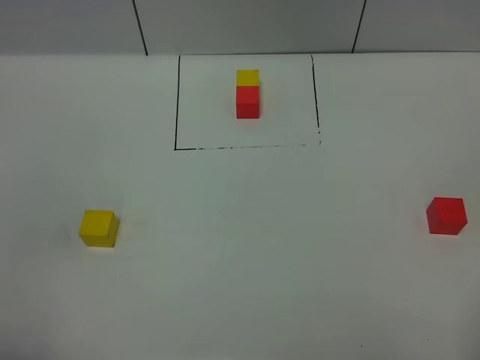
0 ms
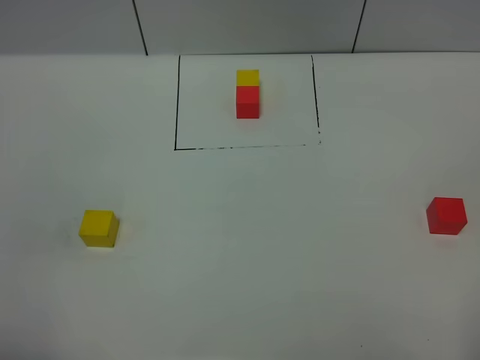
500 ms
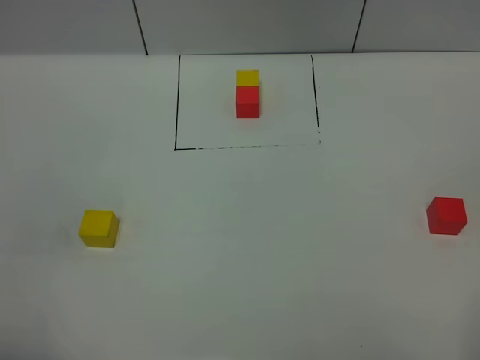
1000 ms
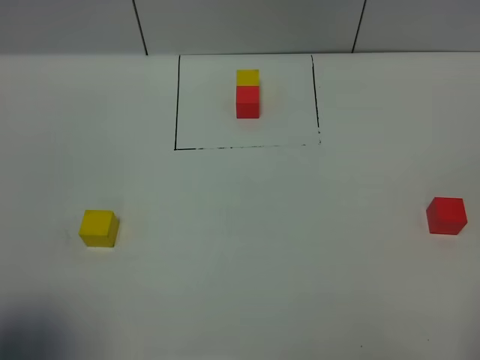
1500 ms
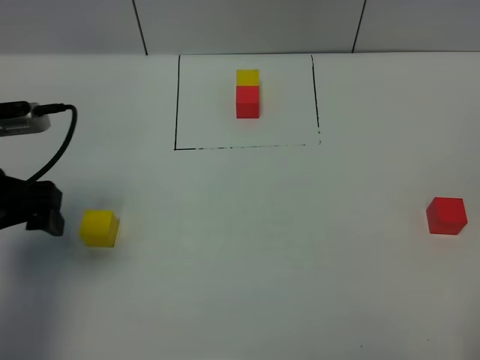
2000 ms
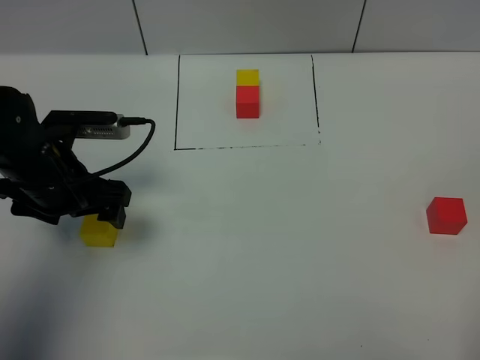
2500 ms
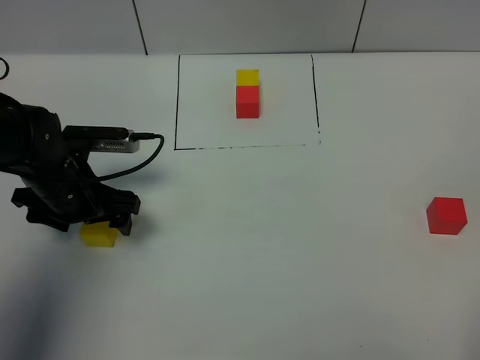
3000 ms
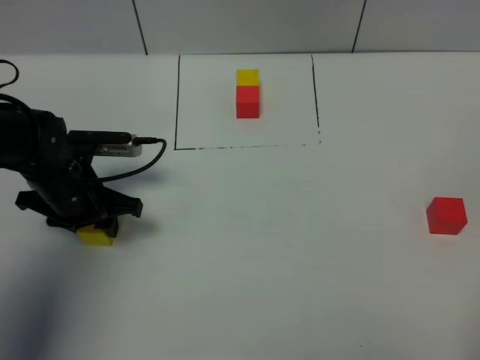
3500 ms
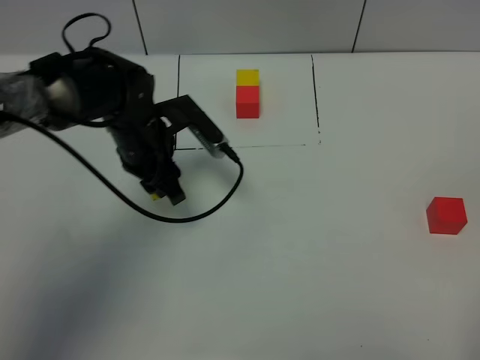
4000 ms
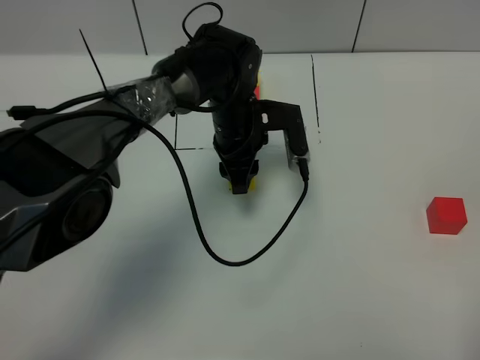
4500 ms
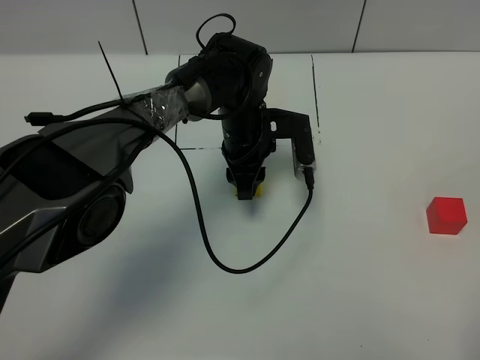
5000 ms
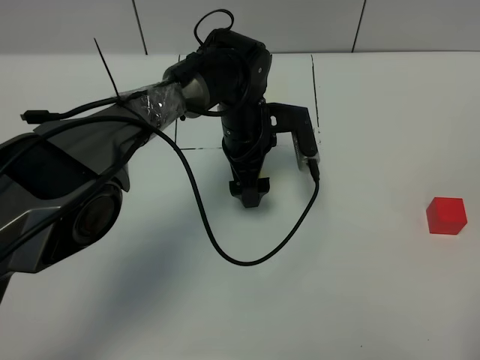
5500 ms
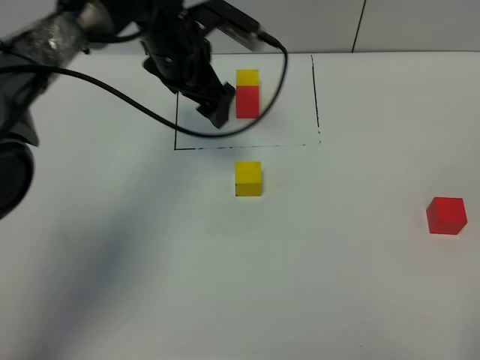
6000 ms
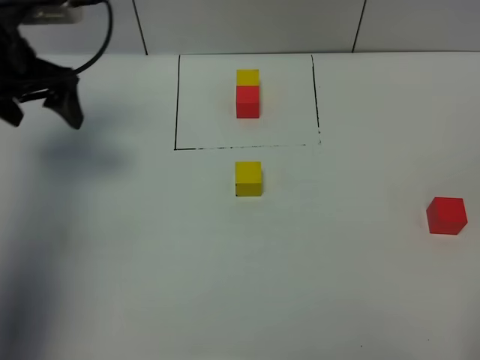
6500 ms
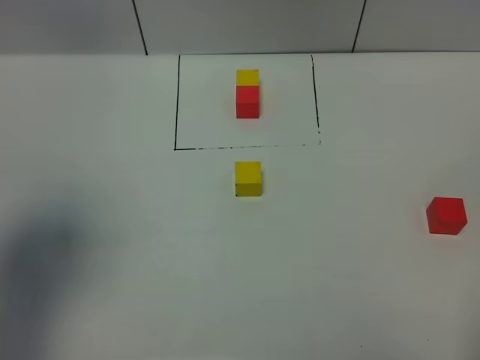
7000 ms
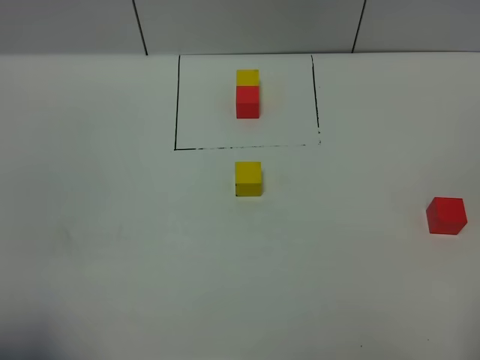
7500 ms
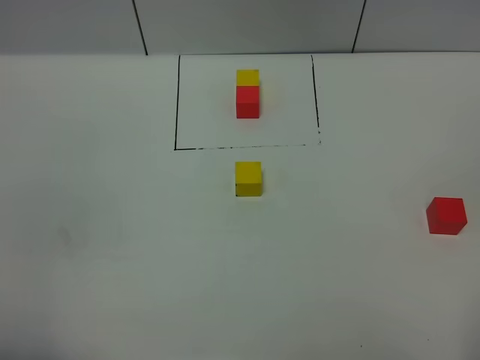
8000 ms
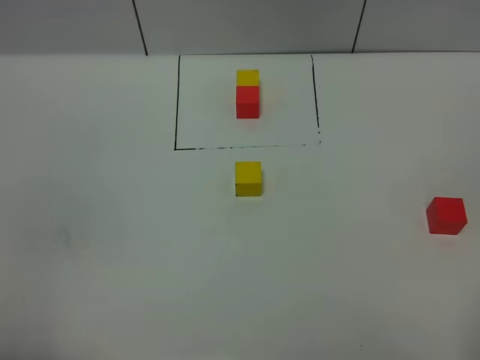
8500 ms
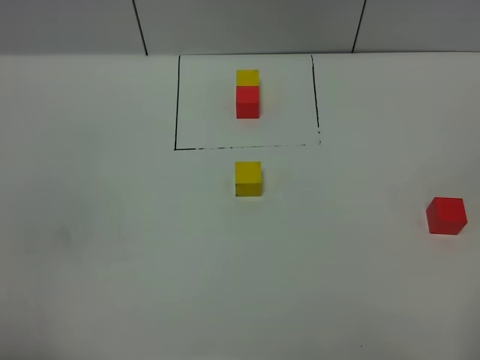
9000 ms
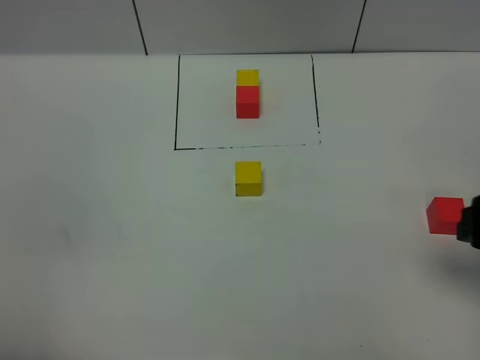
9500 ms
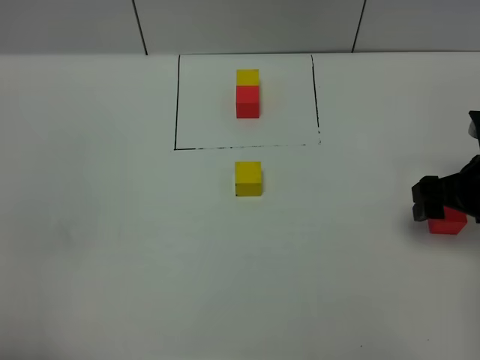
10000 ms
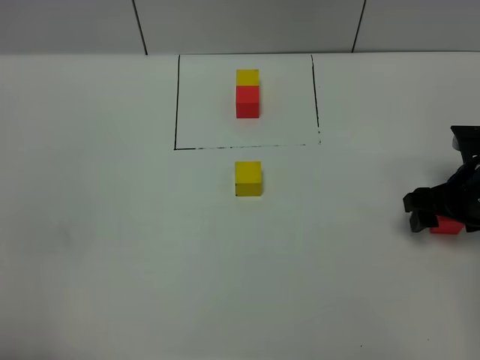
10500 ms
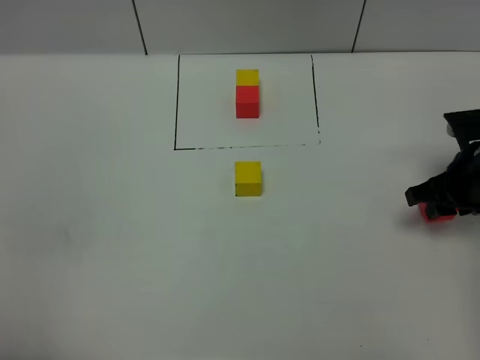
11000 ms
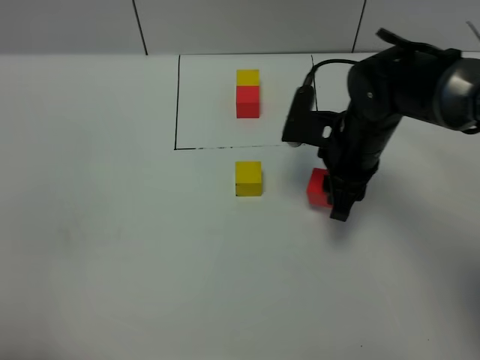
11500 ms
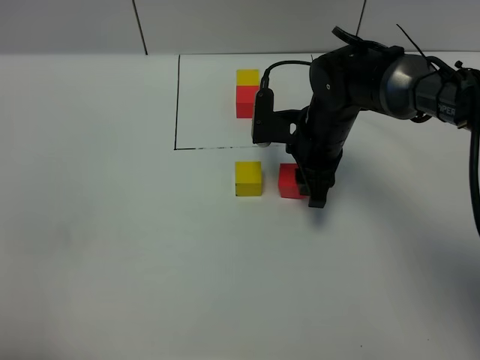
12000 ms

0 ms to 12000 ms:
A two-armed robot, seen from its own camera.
Task of the whole recording: According to the building block template in front, assemble the scattered blocks together.
Step, 2000 ms to 5500 ms: Put the yellow cube in the center of the table.
0 ms to 2000 ms: The left gripper goes about 25 cm forward.
2000 ms to 4000 ms: The left gripper is displaced to the right, forward and downward by roughly 20 cm, and closes up.
4000 ms to 6000 ms: The left gripper goes approximately 10 cm upward and forward, and opens up.
6000 ms to 8000 ms: The left gripper goes roughly 50 cm backward.
8000 ms to 10000 ms: The right gripper heads forward, covering some 30 cm.
10000 ms to 12000 ms: The right gripper is displaced to the left and forward by about 20 cm, and closes.

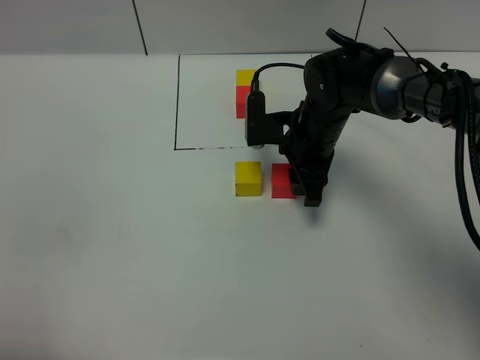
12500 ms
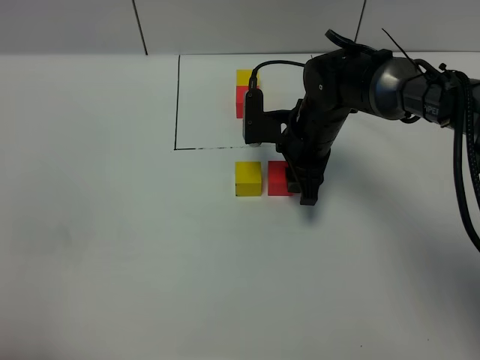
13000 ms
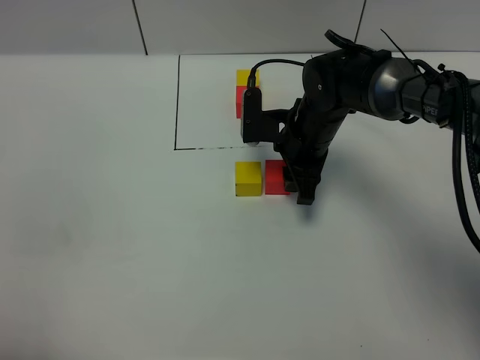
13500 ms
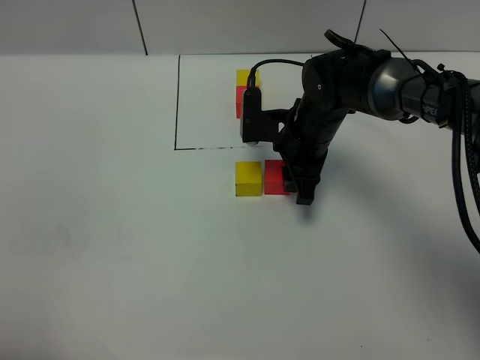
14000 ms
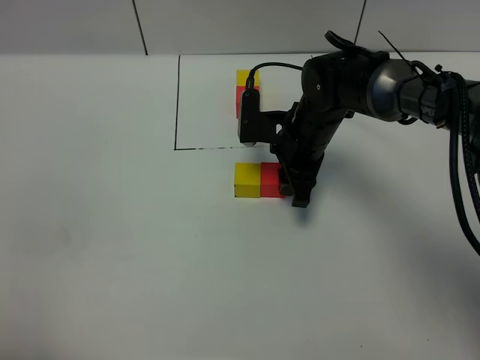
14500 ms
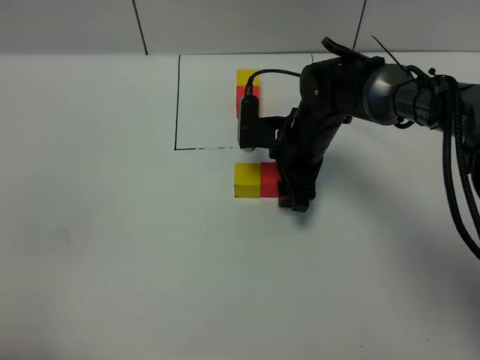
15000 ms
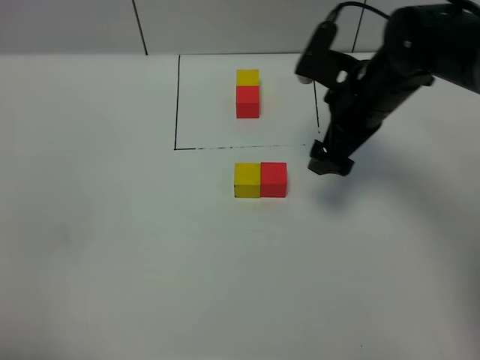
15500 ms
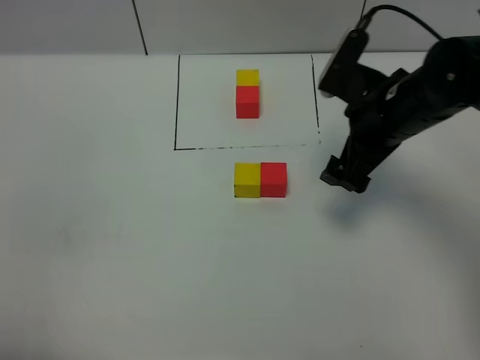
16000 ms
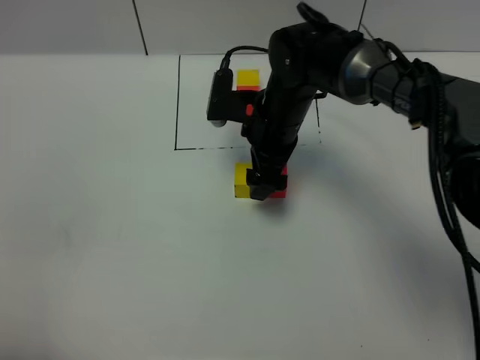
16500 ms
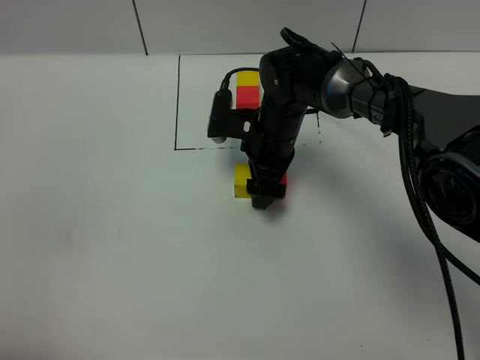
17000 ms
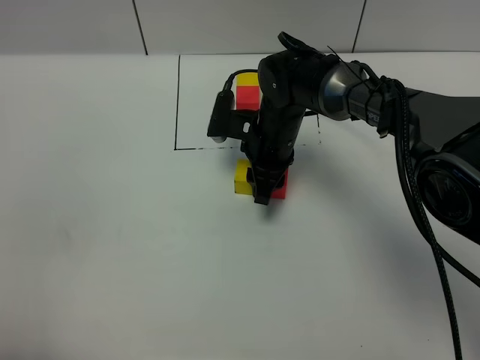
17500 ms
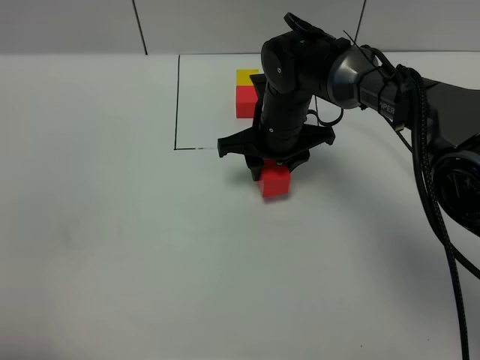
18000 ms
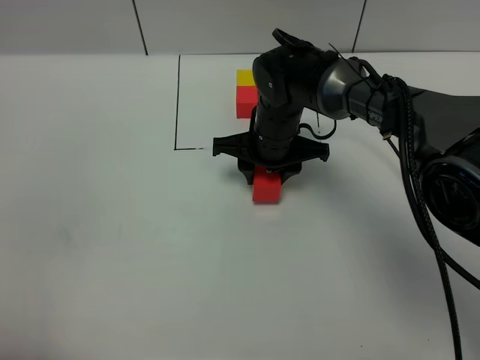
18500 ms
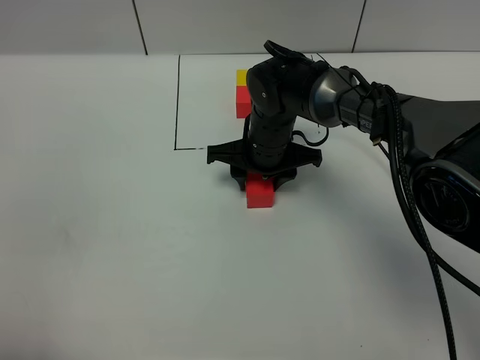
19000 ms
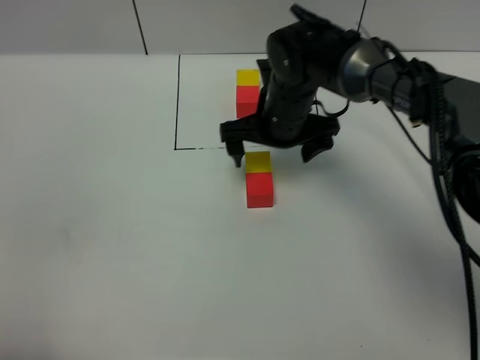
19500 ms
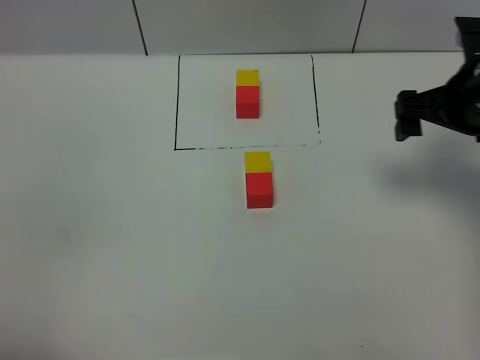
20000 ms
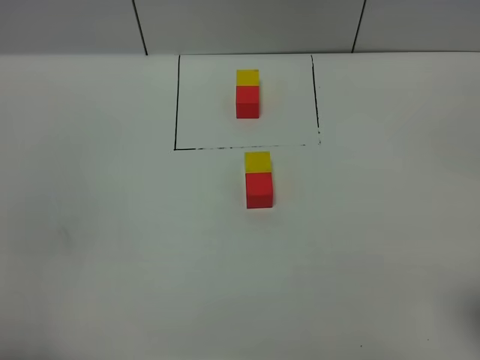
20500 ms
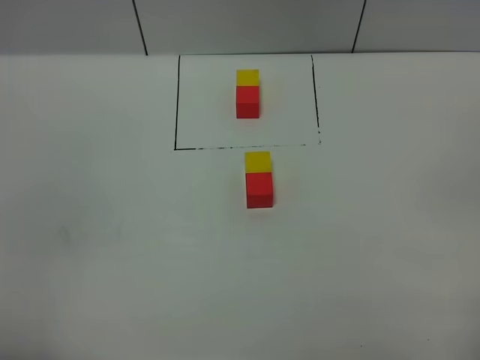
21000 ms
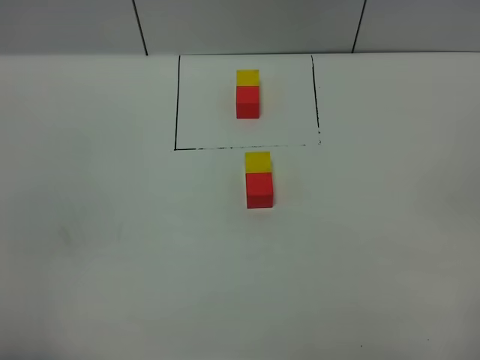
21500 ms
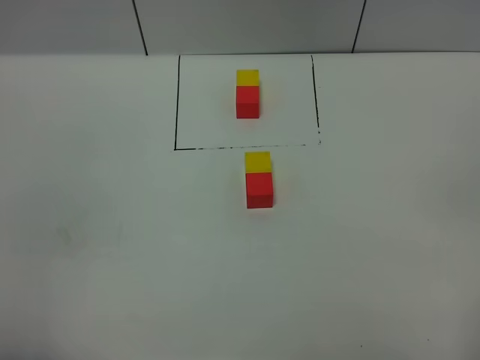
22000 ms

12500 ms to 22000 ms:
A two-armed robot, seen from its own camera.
Task of the whole recording: According to the building block template in front, assemble the scattered blocks together.
Step, 12500 ms to 15000 ms: Put the red cube on the right of the yellow cube.
Step, 15500 ms to 19000 ms: Adjust the pose of the building blocks.
12500 ms to 14500 ms: Both grippers stay put.
14500 ms to 16500 ms: The right gripper reaches some 10 cm to the right, then returns, and opens up.
16500 ms to 18000 ms: The right gripper closes.
18000 ms to 20000 ms: The right gripper shifts roughly 25 cm to the right and upward, and opens its fingers.
20000 ms to 22000 ms: The right gripper goes some 35 cm backward.

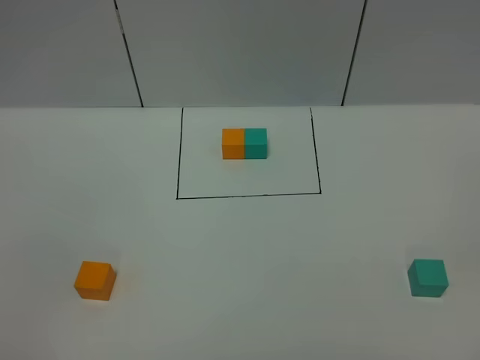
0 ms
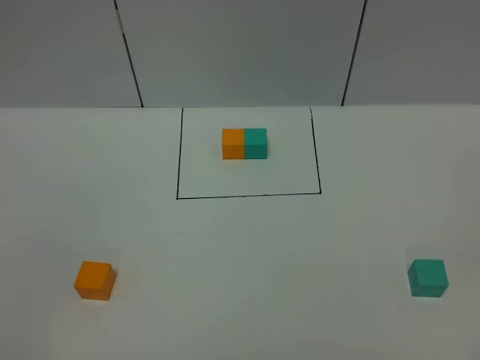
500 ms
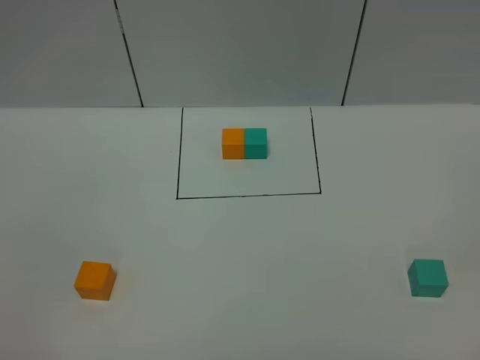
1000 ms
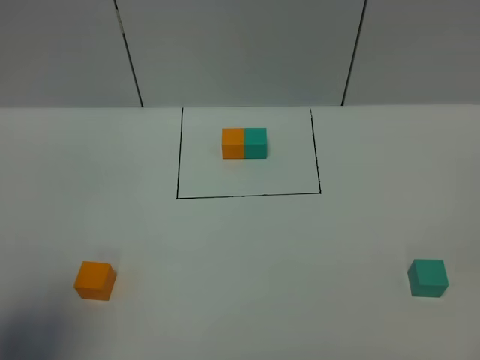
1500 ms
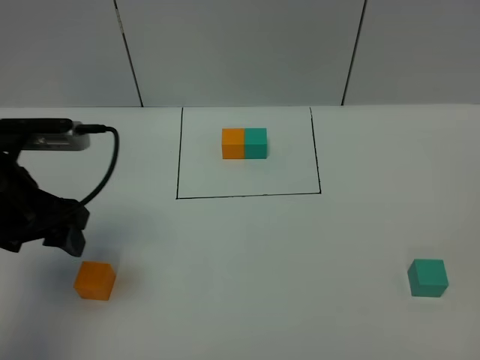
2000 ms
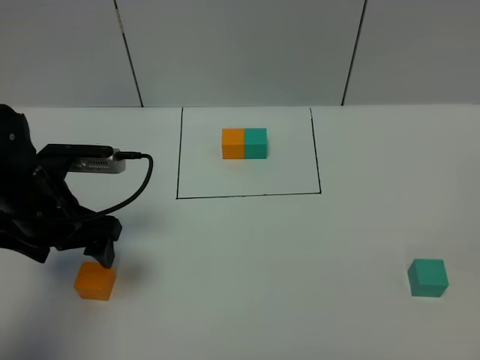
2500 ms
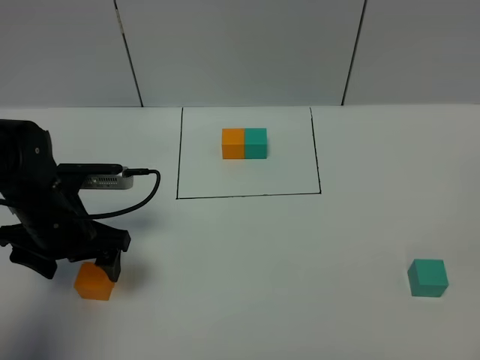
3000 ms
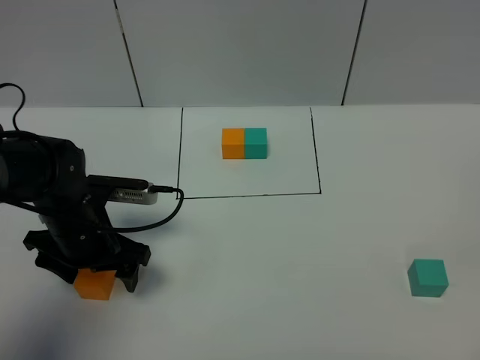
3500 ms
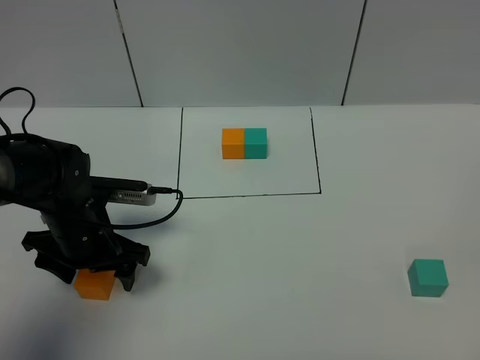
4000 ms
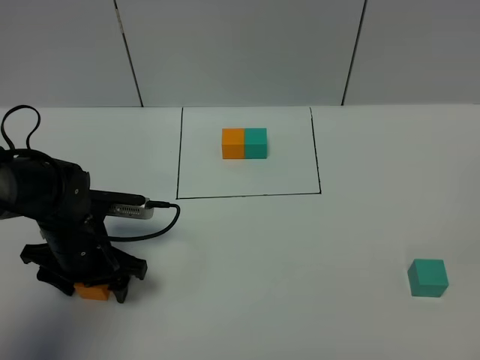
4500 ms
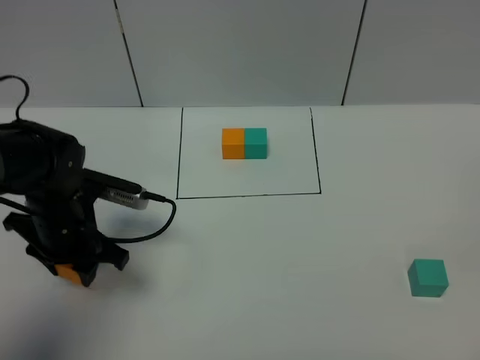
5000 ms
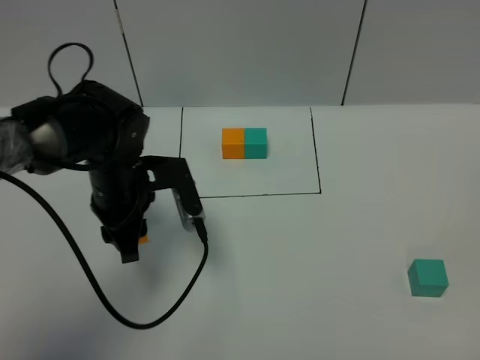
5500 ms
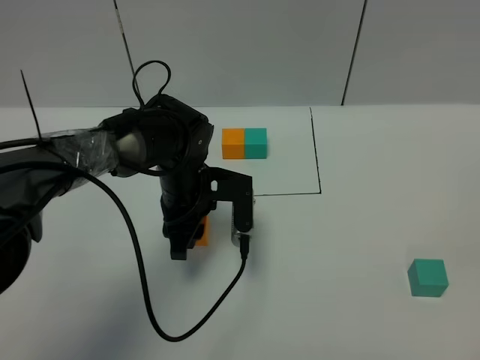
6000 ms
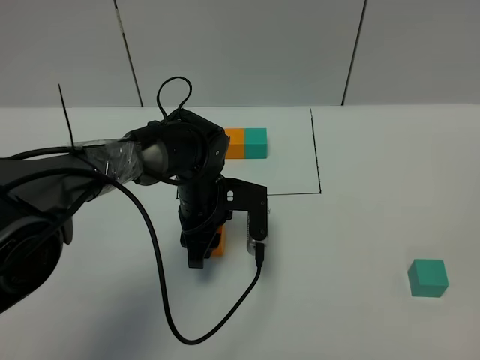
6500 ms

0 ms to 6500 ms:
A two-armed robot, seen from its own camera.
Task of the whole recording: According to the building block template in front, assemble the scattered blocks together.
0 ms to 2000 ms: The left gripper goes some 30 cm forward.
2000 ms to 4500 ms: The left gripper travels downward by some 15 cm.
4500 ms to 6500 ms: The left gripper travels to the right and forward by roughly 15 cm, and closes.
